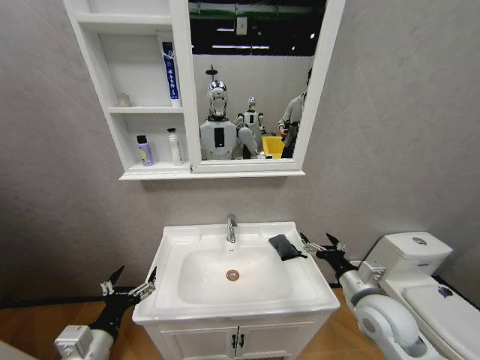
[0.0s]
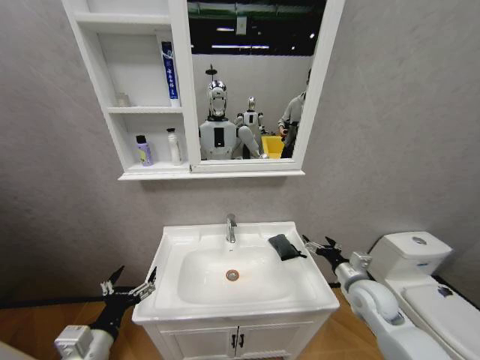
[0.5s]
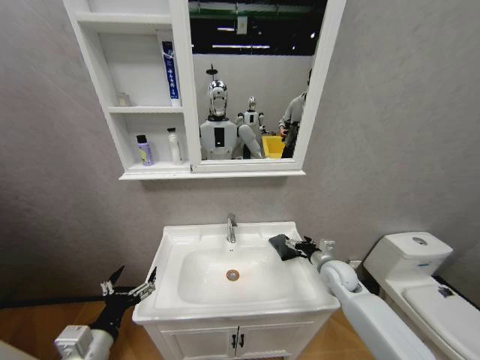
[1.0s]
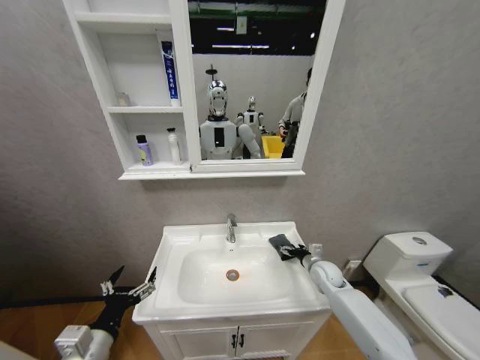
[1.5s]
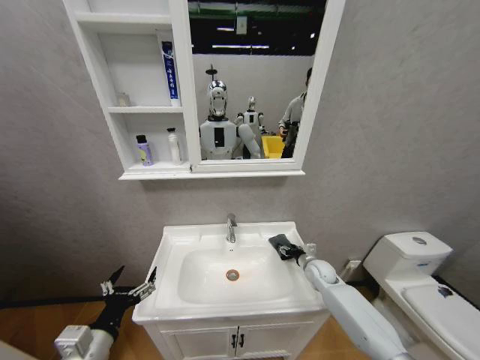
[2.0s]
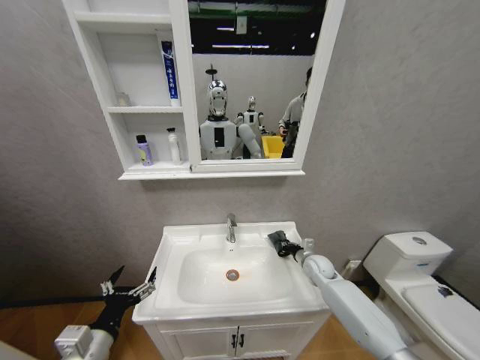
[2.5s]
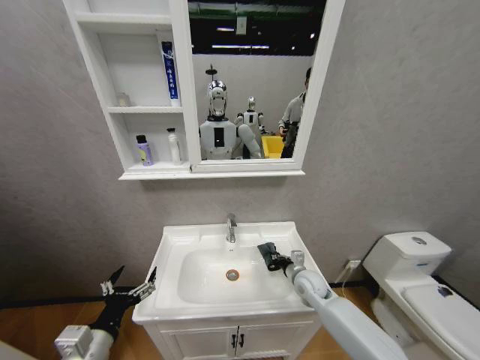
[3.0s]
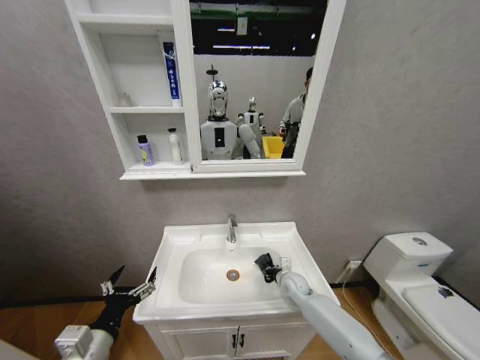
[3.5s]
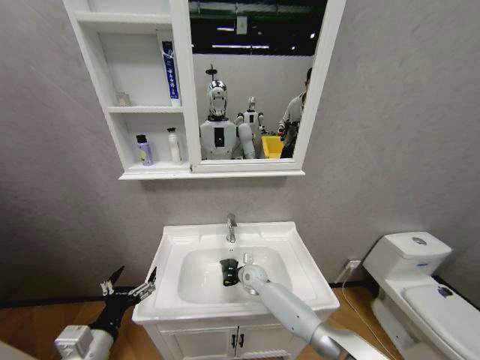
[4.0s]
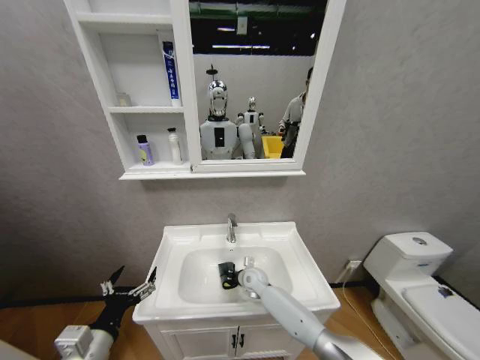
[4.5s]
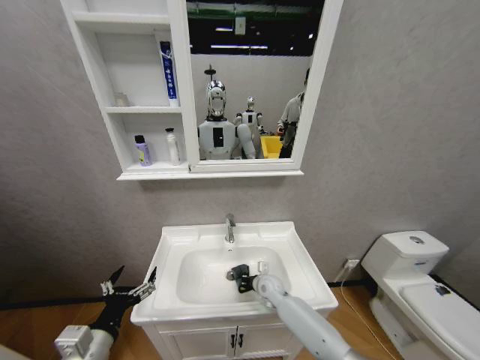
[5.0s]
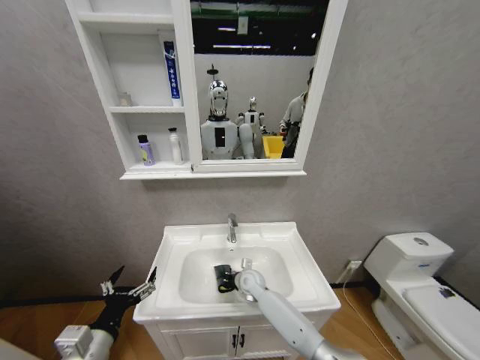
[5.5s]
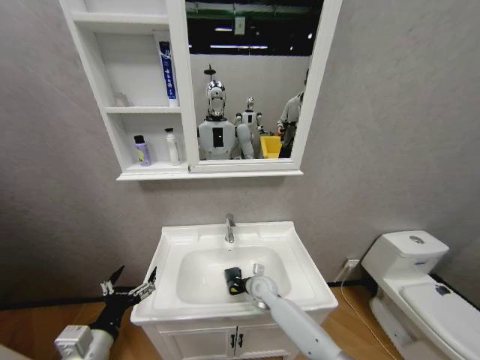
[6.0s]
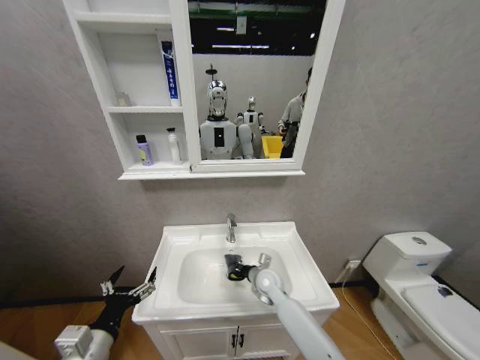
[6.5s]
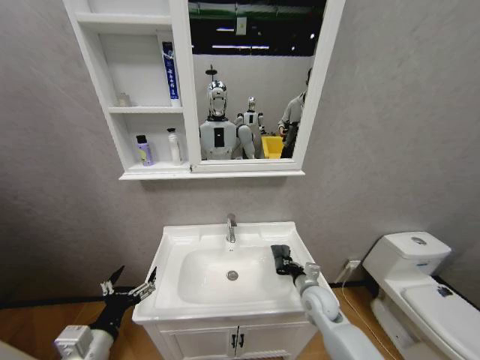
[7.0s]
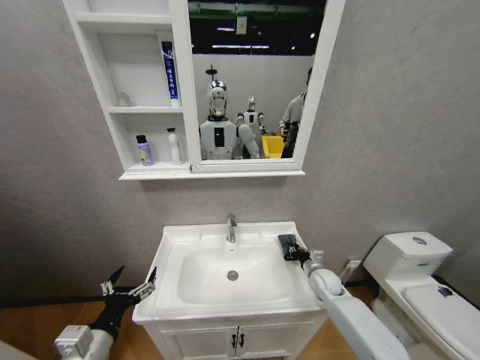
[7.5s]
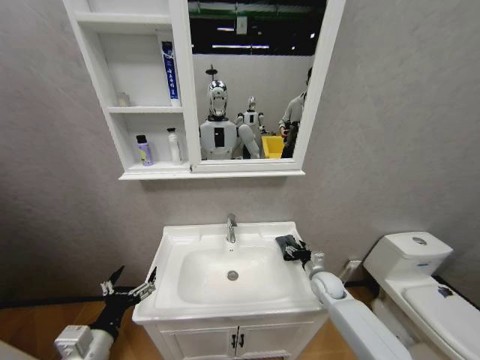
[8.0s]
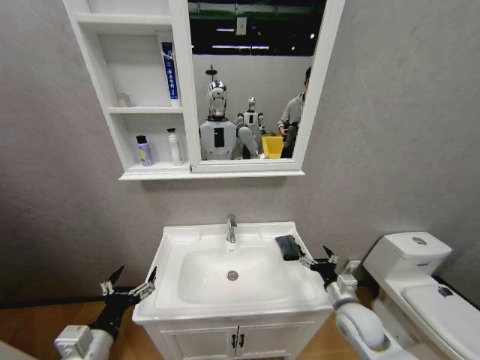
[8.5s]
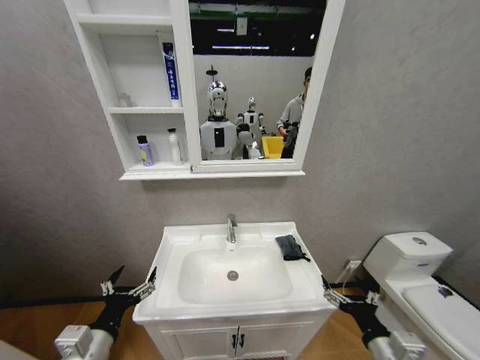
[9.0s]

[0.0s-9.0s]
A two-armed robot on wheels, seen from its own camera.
Task of the whole recording: Move facial cleanser and shampoo from washbasin to cabinet, then wipe washbasin with towel.
0.0s to 2.0s: The right gripper moves forward and downward, approximately 25 cm, and closes up.
2.0s to 4.5s: The right gripper is displaced to the left by about 25 cm, and closes its fingers.
4.5s to 7.0s: The right gripper moves left and right over about 15 cm, changing direction 2 times.
7.0s to 9.0s: The right gripper is displaced backward and upward by about 25 cm, and opens its fingers.

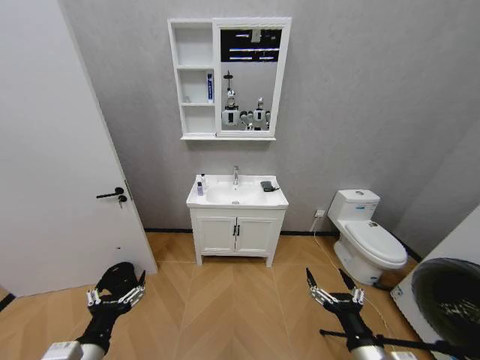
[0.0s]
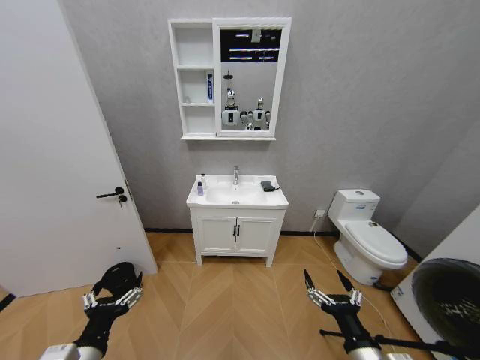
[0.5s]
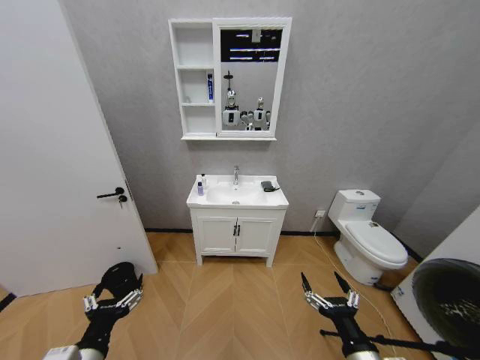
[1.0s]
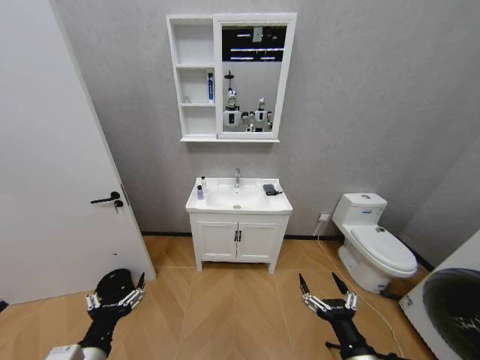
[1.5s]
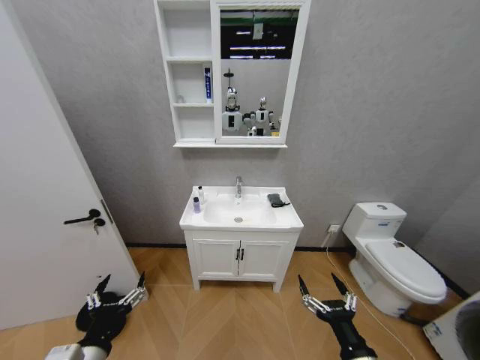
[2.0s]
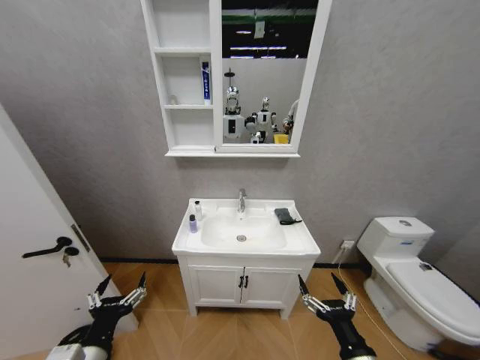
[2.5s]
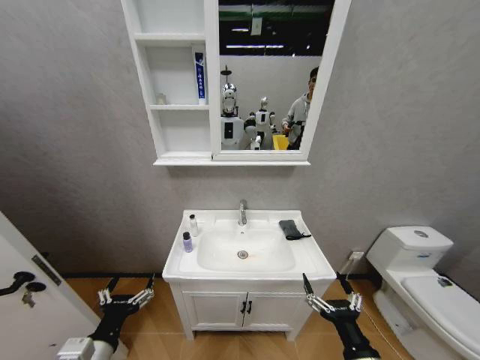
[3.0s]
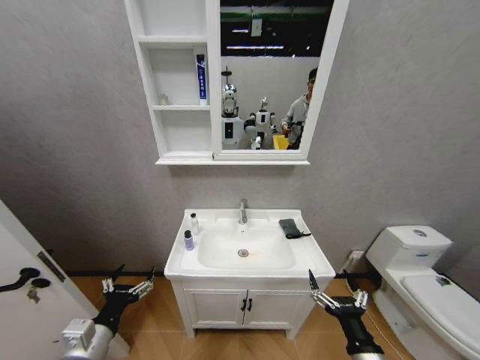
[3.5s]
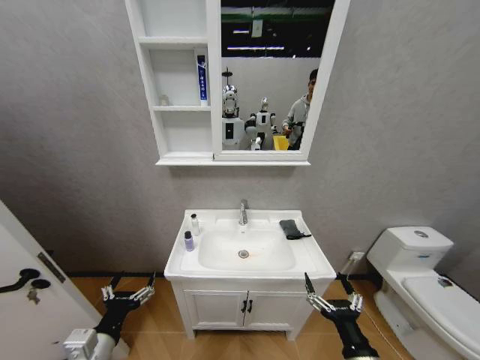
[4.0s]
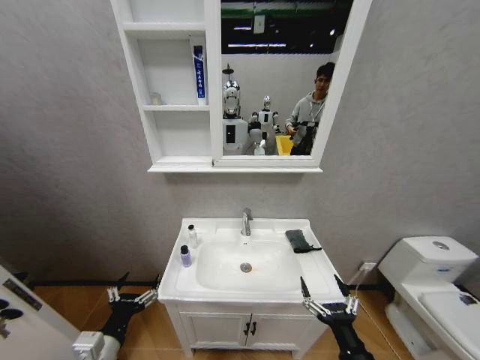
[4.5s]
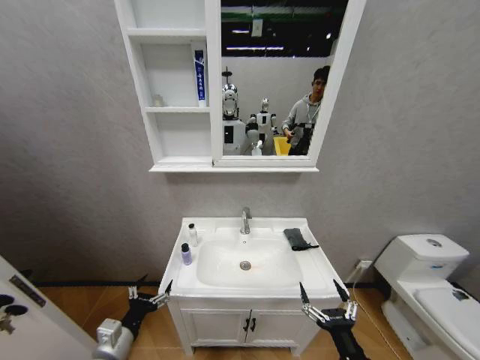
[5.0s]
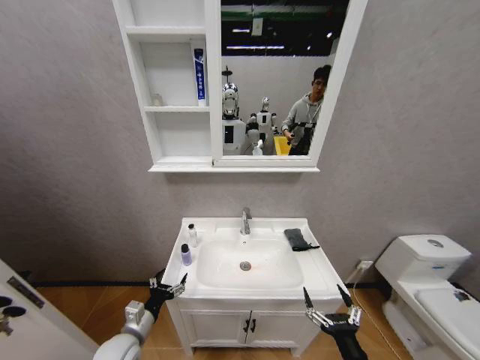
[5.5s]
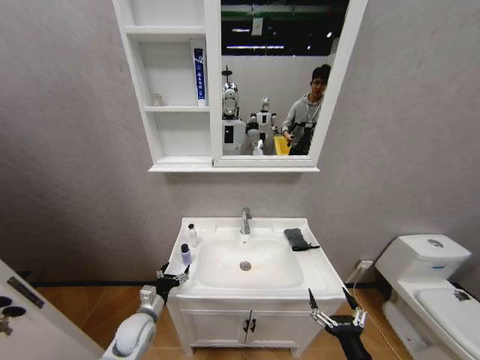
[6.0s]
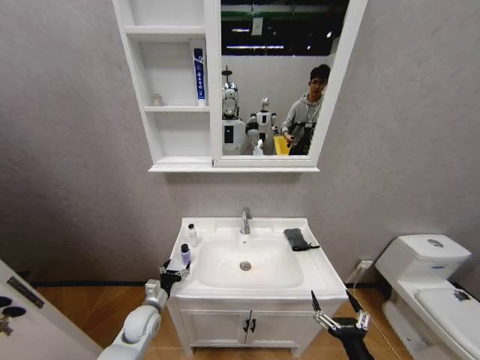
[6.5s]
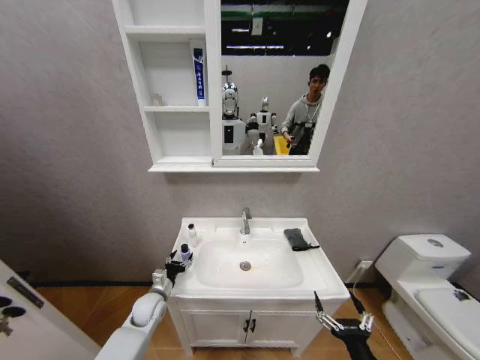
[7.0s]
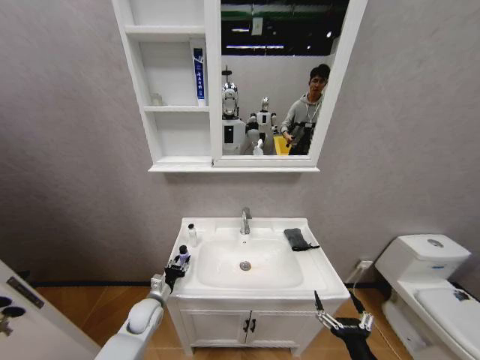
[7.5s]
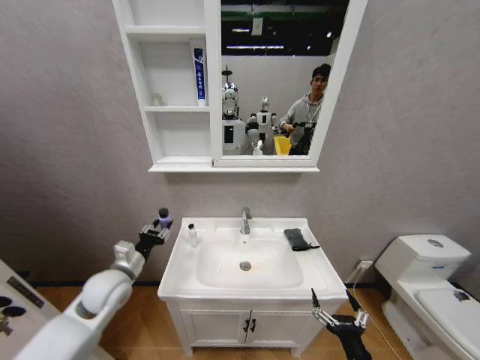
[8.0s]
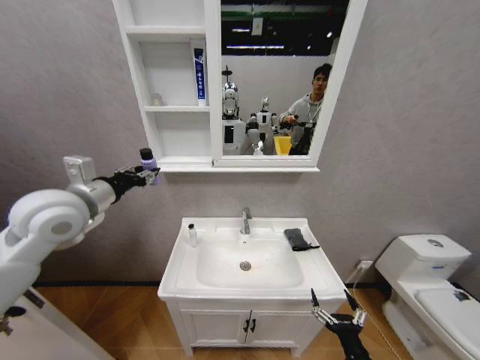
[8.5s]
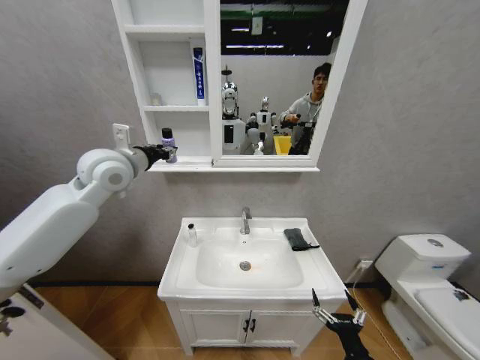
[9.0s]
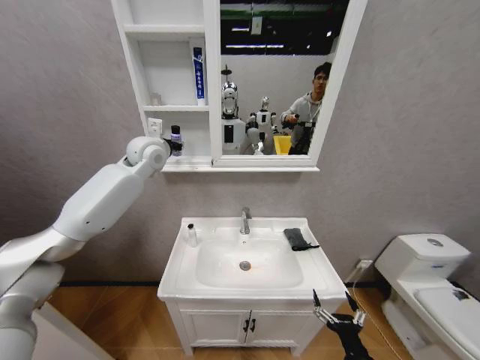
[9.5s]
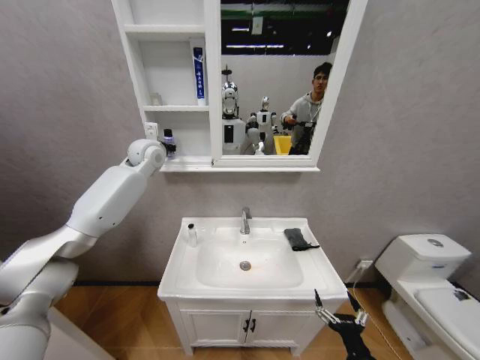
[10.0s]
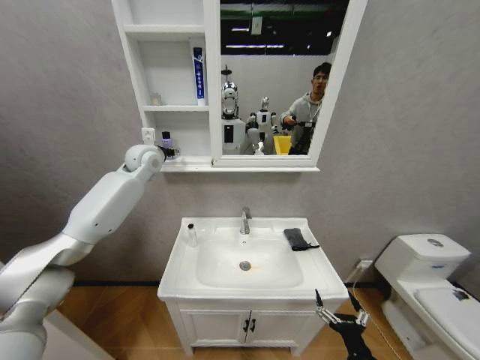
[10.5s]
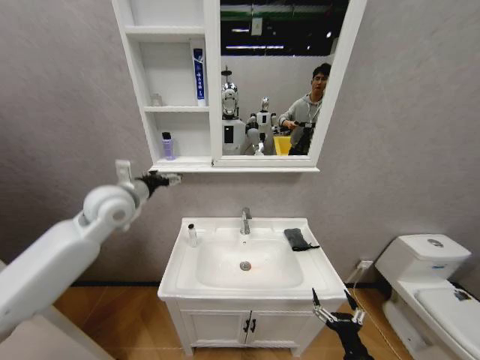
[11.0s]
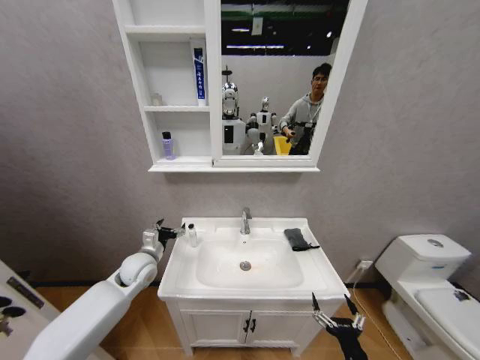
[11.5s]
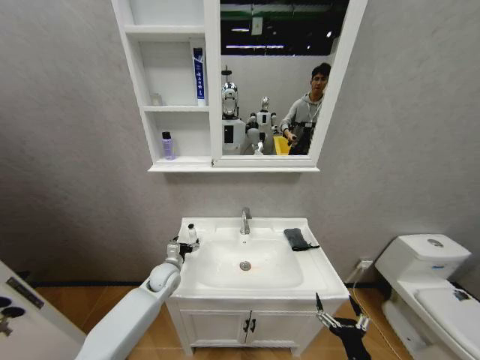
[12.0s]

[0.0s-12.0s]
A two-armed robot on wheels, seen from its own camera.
Task of the whole recording: Move facial cleanser and shampoo from washbasin to cabinet, then wipe washbasin with towel.
4.0s to 6.0s: The left gripper is displaced forward and downward by approximately 20 cm.
6.0s to 8.0s: The left gripper travels upward by approximately 20 cm, and closes its fingers.
8.0s to 10.0s: The left gripper moves forward and upward, roughly 35 cm.
10.0s to 12.0s: The left gripper travels downward and backward by about 40 cm, and opens.

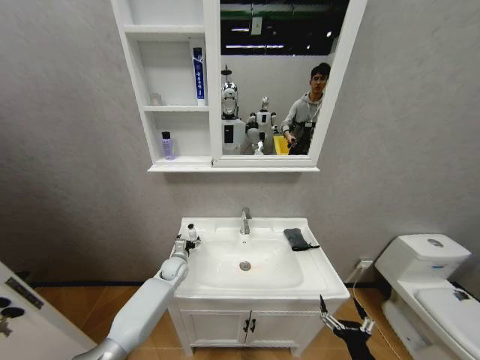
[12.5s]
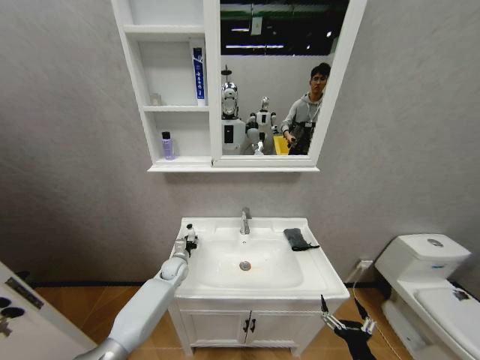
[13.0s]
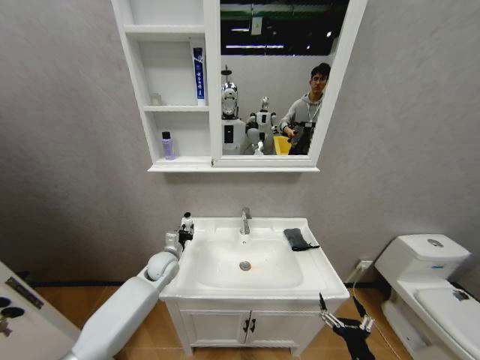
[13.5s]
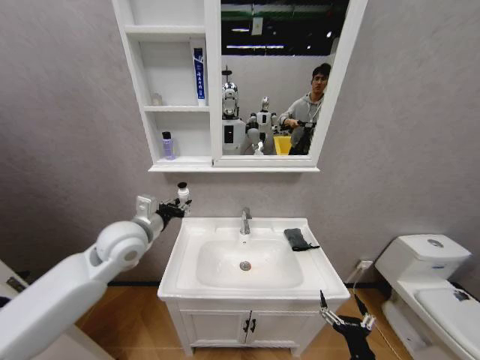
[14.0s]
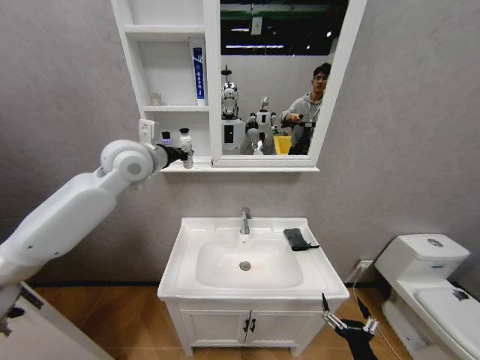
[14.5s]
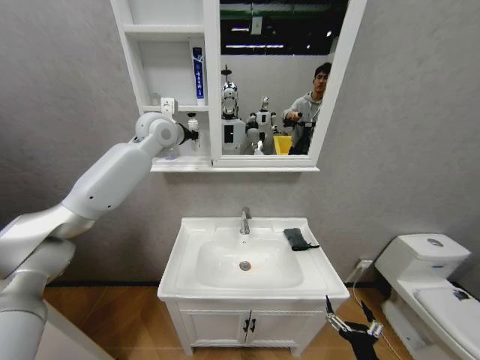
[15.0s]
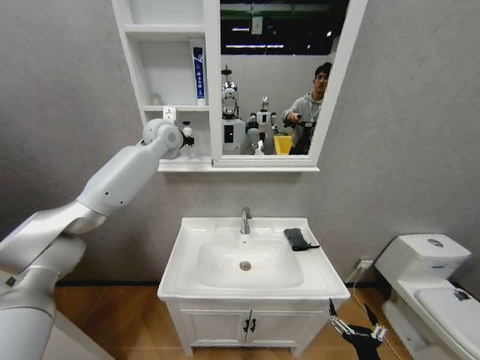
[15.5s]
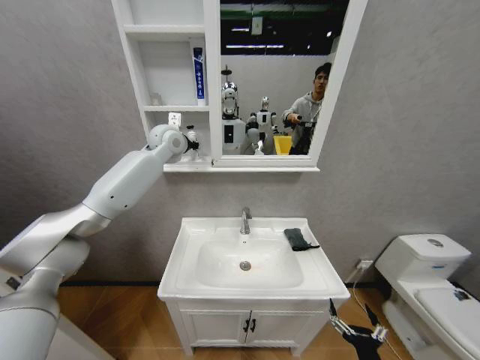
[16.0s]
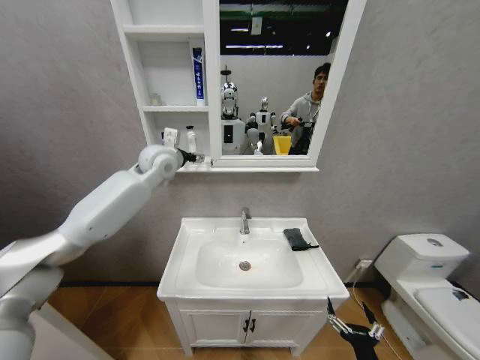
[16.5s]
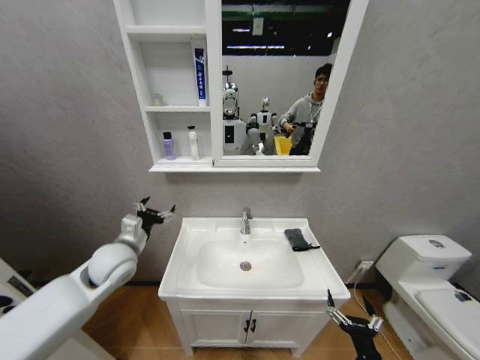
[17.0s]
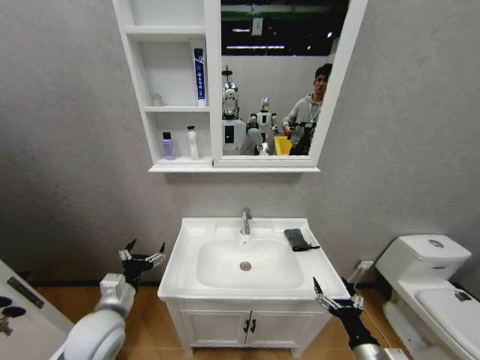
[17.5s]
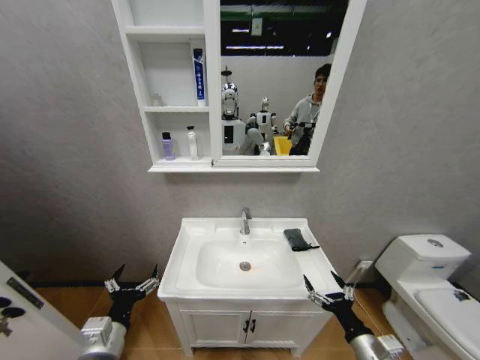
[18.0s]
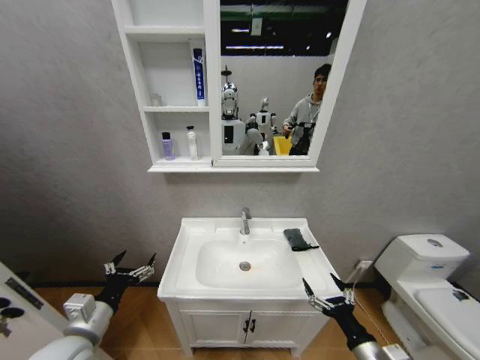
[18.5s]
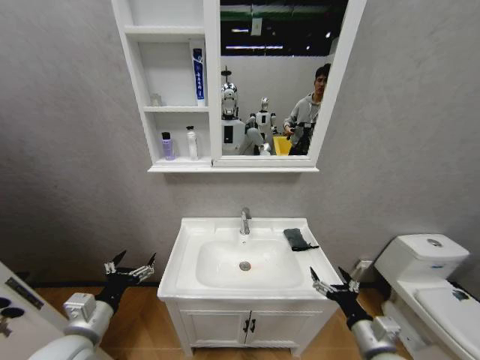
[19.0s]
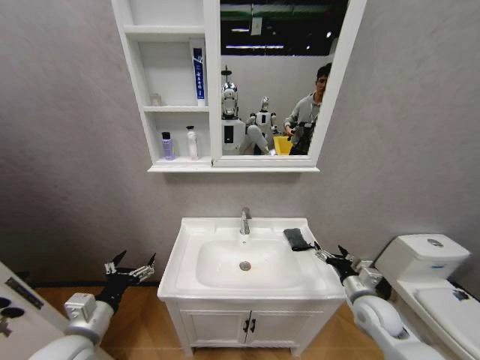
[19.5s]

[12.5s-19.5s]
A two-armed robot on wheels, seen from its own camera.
Task of the whole recording: Move facial cleanser and shampoo from washbasin to cabinet, then wipe washbasin with towel.
12.5s to 14.5s: The left gripper heads upward, covering some 40 cm, and closes up.
14.5s to 16.0s: The left gripper is displaced forward by approximately 15 cm.
16.0s to 17.5s: The left gripper moves backward and downward, about 50 cm, and opens its fingers; the right gripper goes approximately 5 cm forward.
17.5s to 19.5s: The right gripper moves forward, some 15 cm; the left gripper changes place by approximately 5 cm.
